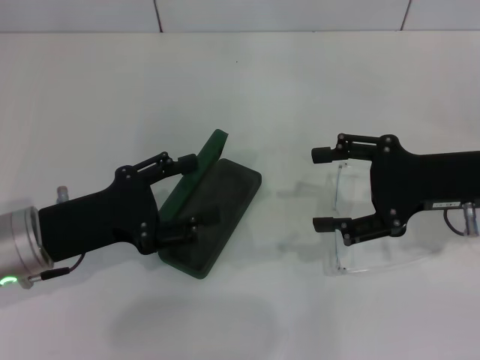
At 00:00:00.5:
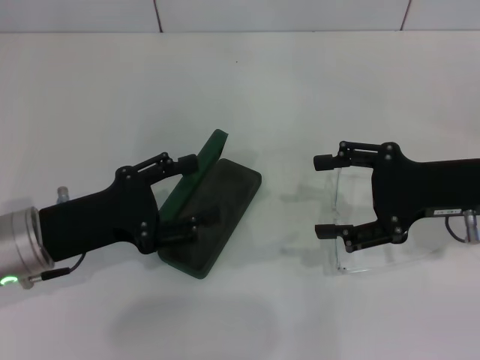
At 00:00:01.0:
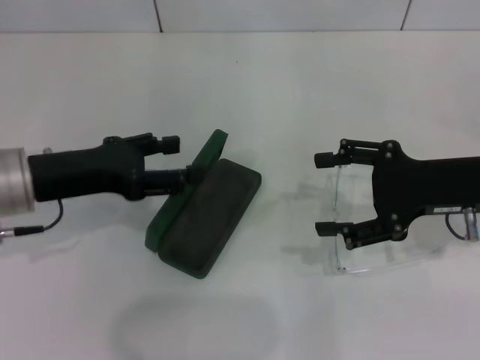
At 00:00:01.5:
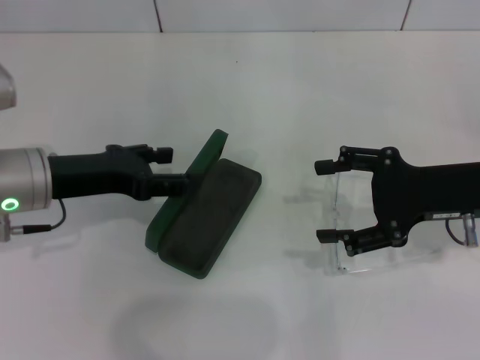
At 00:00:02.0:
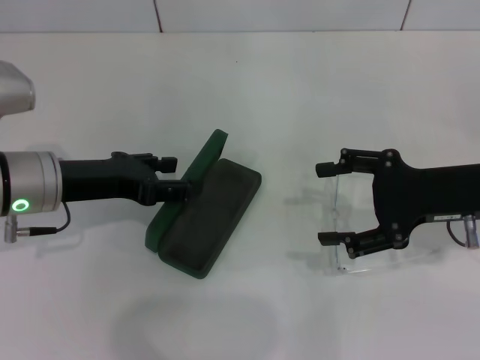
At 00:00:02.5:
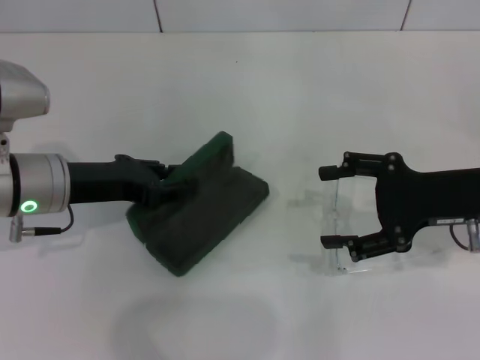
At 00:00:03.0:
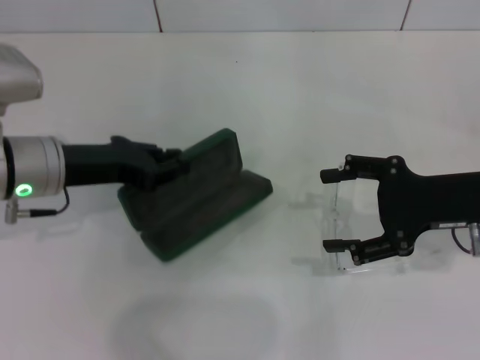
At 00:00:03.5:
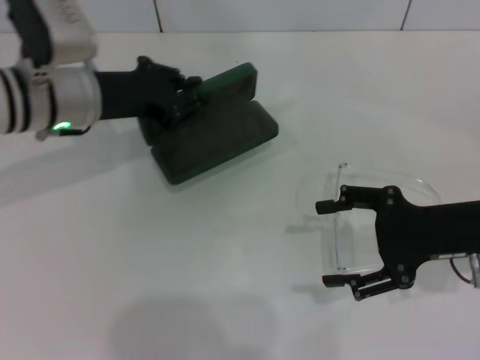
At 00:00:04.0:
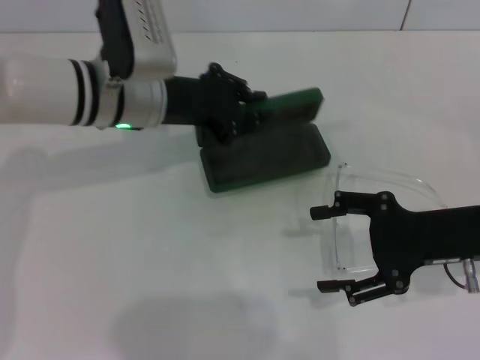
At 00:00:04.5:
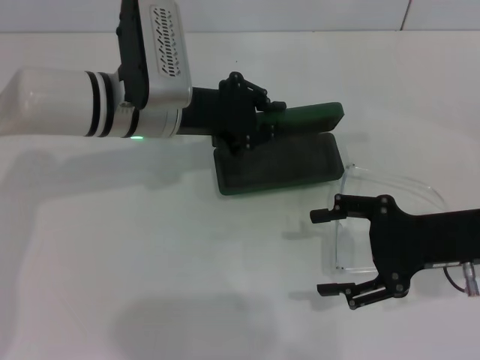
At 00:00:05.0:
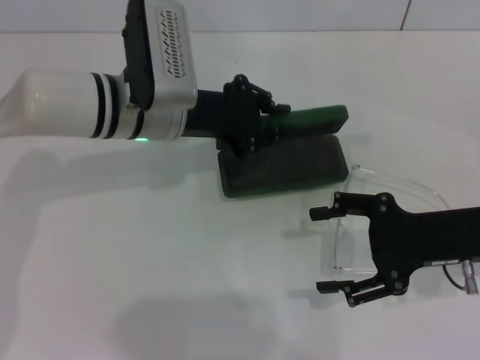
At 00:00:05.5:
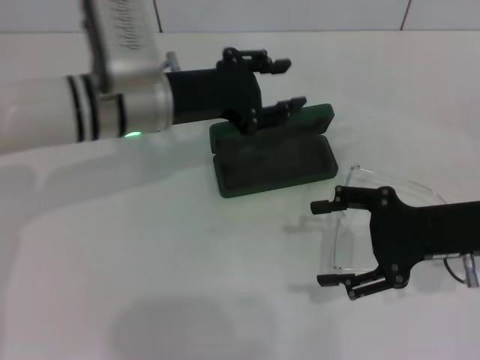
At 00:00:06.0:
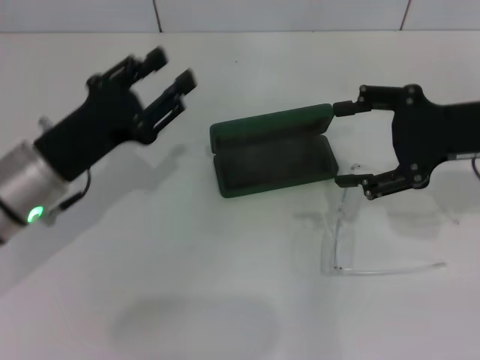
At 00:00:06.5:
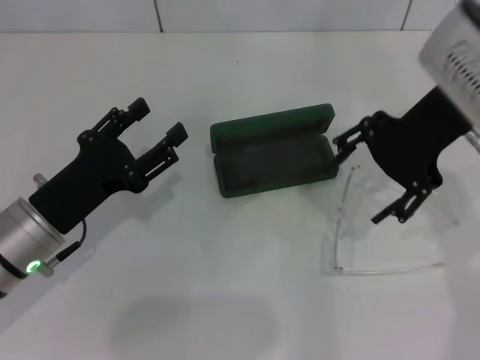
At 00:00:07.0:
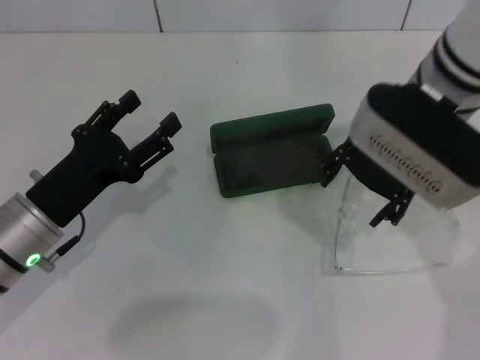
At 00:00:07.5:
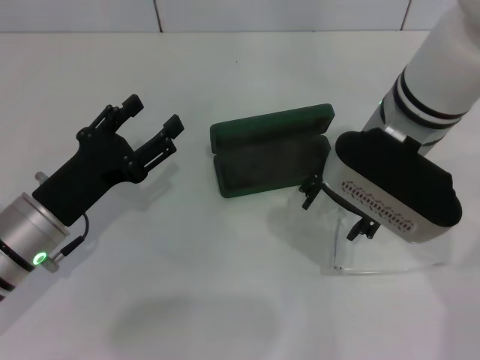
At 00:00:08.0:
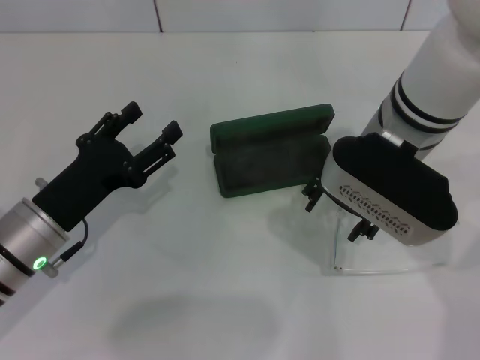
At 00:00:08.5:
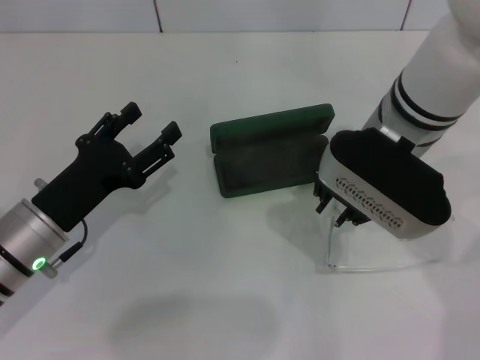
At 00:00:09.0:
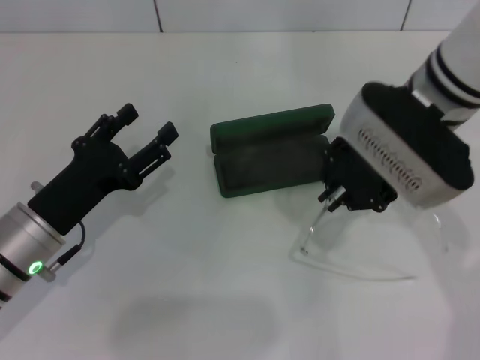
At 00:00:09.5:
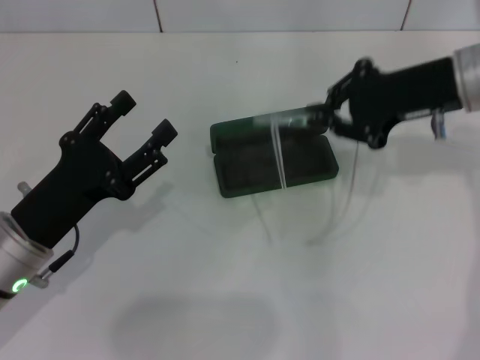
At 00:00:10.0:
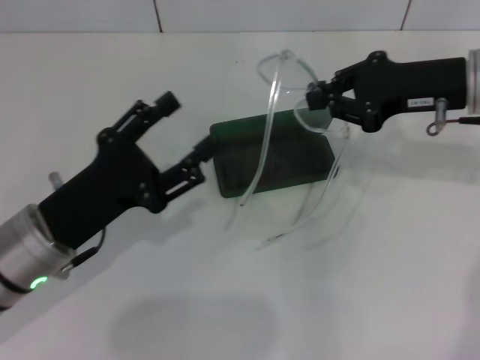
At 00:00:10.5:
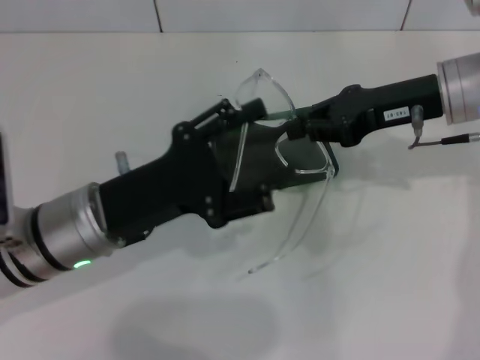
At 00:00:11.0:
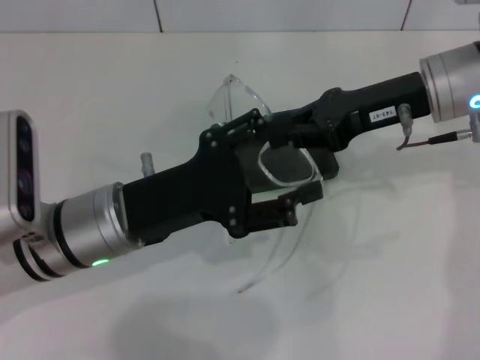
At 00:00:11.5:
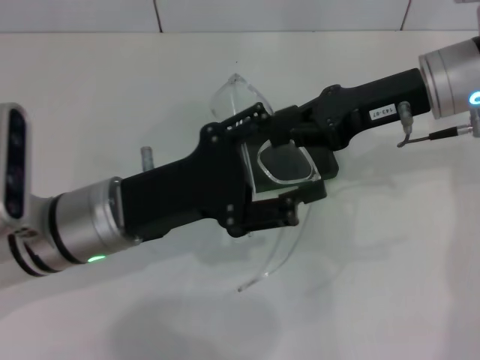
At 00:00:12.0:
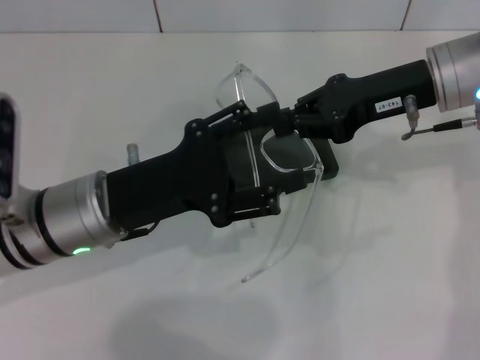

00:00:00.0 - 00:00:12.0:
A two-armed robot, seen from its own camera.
Step, 00:00:00.0 - 00:00:02.0: Grab the glasses case with your left hand.
Step, 00:00:03.0 - 00:00:05.0: Place the glasses case in the center of the table with your left hand.
Step, 00:00:05.5 - 00:00:08.5: Grab the eyeglass frame with your right hand.
00:00:00.0 - 00:00:02.0: The left gripper heads forward, covering about 5 cm.
00:00:02.0 - 00:00:04.0: The left gripper shifts some 10 cm to the right and forward, and closes its fingers.
00:00:04.0 - 00:00:06.0: The right gripper goes approximately 10 cm upward; the left gripper travels backward and to the left by about 15 cm, and opens.
00:00:06.0 - 00:00:08.0: The right gripper heads to the left, covering approximately 15 cm, while the left gripper shifts by roughly 5 cm, and opens.
00:00:08.0 - 00:00:10.0: The right gripper moves to the right, some 10 cm, and closes up.
00:00:10.0 - 00:00:12.0: The left gripper ends up some 5 cm from where it was.

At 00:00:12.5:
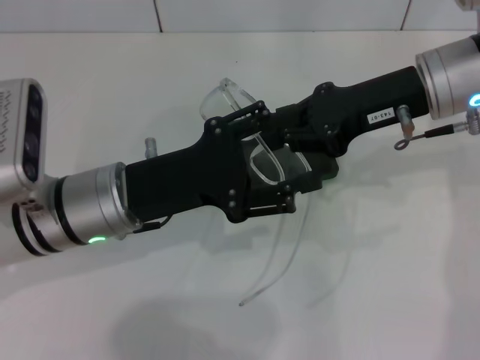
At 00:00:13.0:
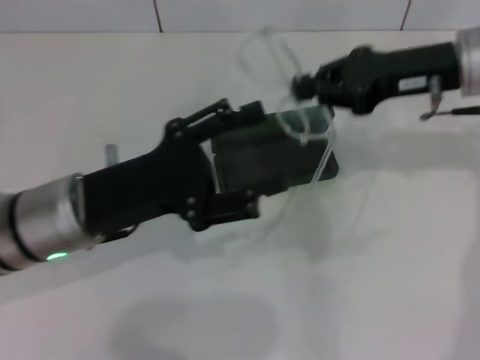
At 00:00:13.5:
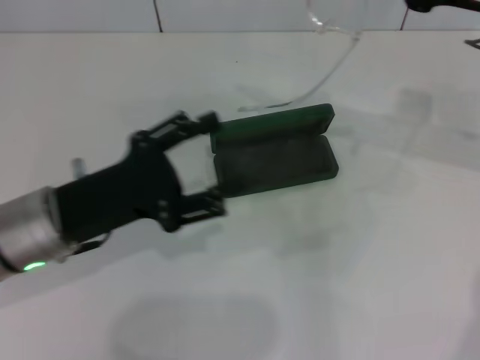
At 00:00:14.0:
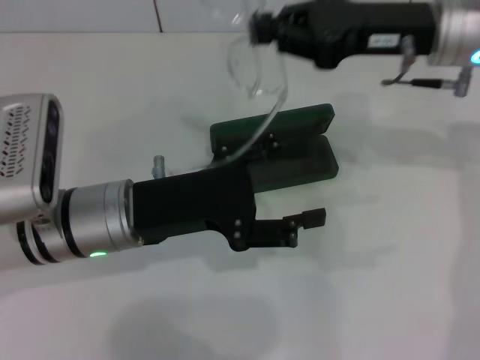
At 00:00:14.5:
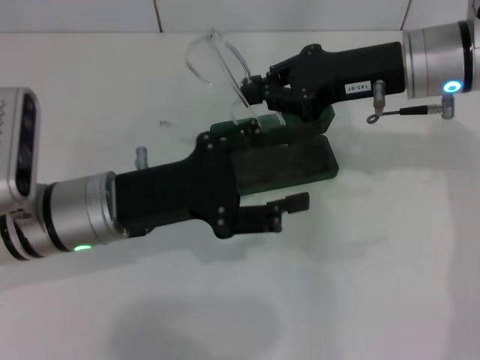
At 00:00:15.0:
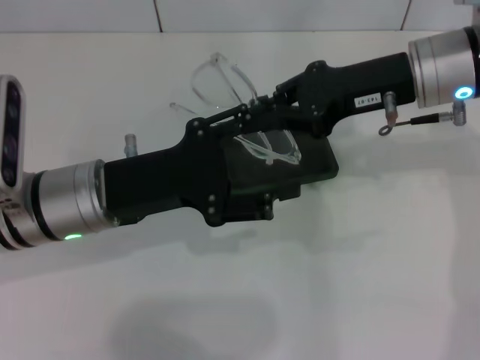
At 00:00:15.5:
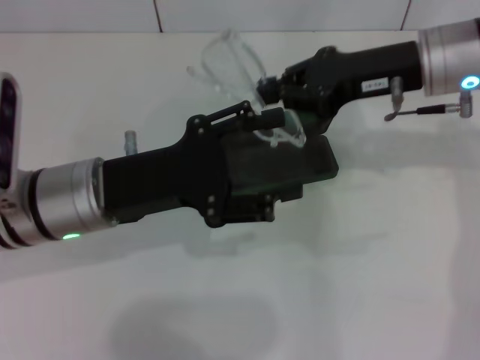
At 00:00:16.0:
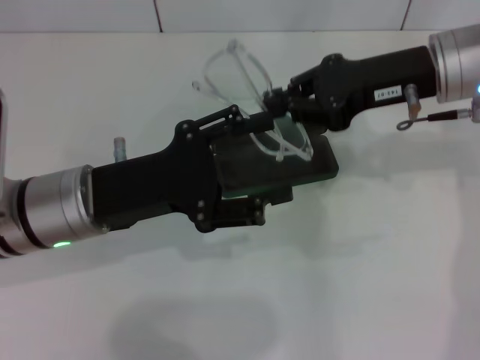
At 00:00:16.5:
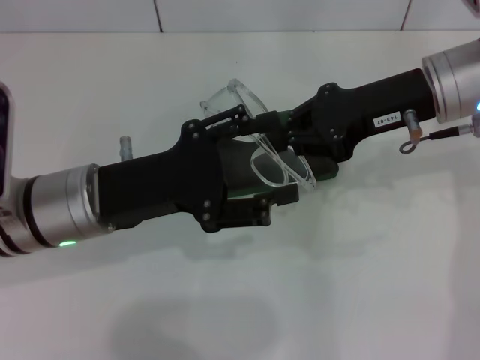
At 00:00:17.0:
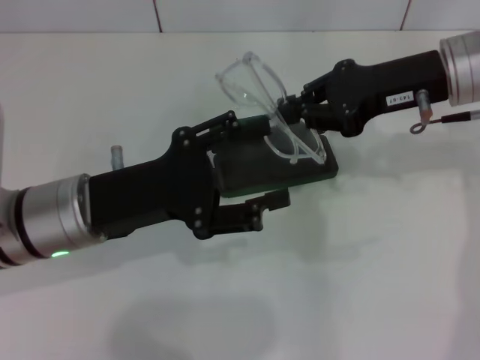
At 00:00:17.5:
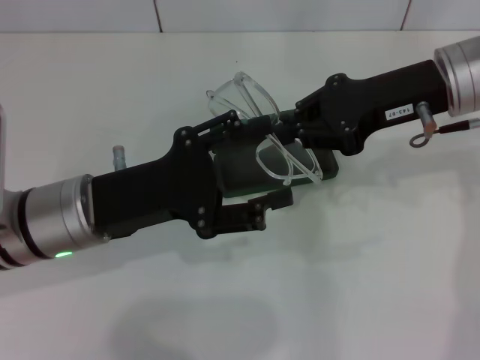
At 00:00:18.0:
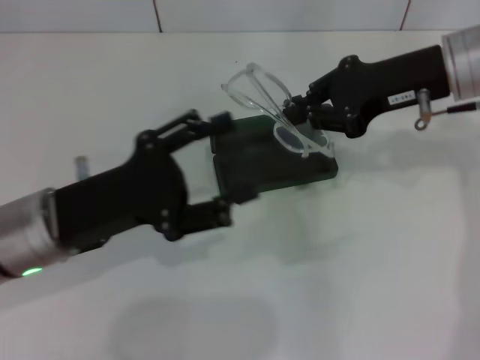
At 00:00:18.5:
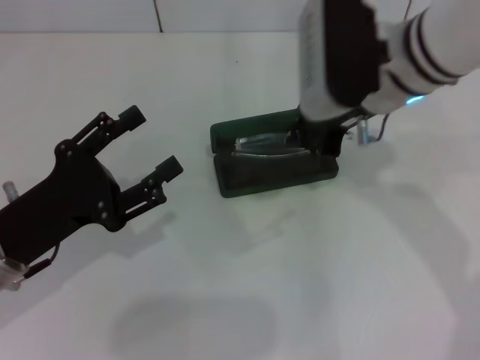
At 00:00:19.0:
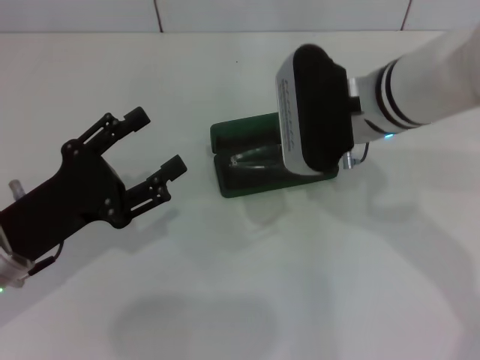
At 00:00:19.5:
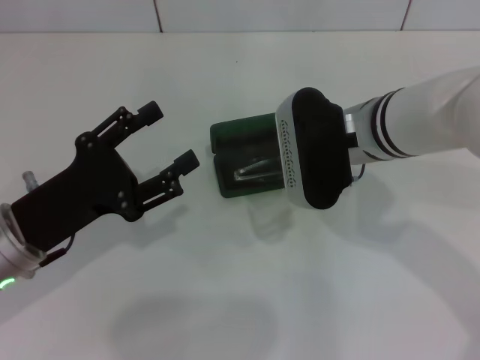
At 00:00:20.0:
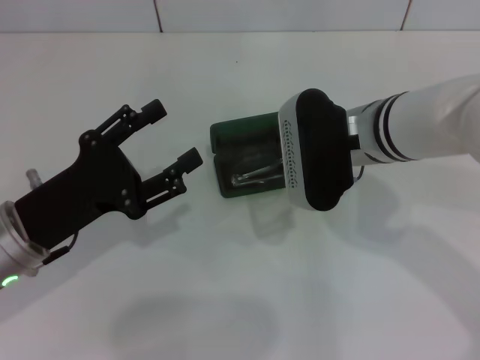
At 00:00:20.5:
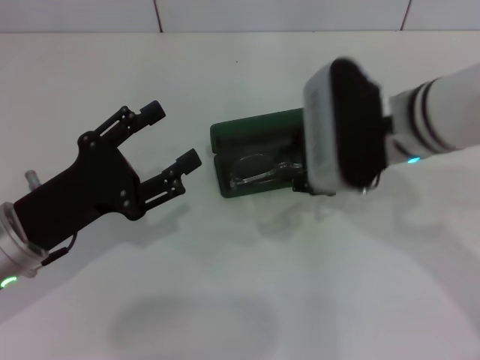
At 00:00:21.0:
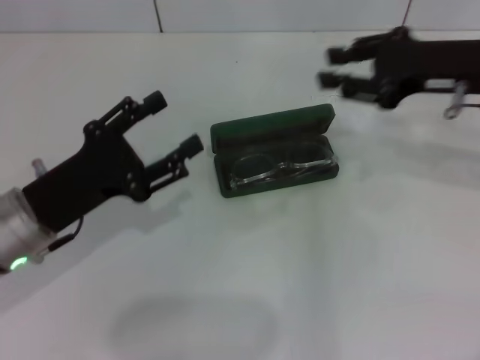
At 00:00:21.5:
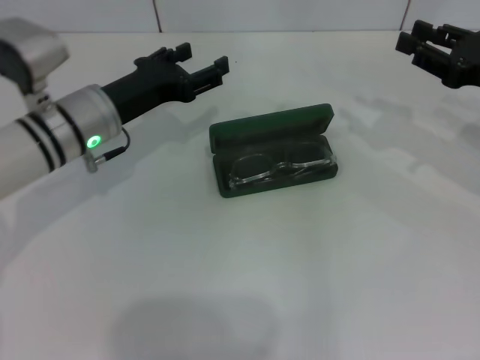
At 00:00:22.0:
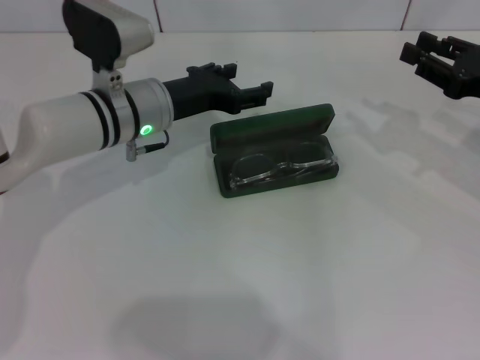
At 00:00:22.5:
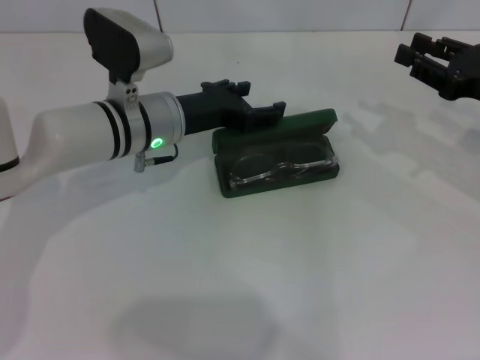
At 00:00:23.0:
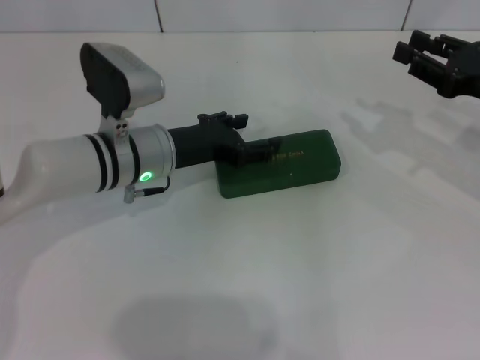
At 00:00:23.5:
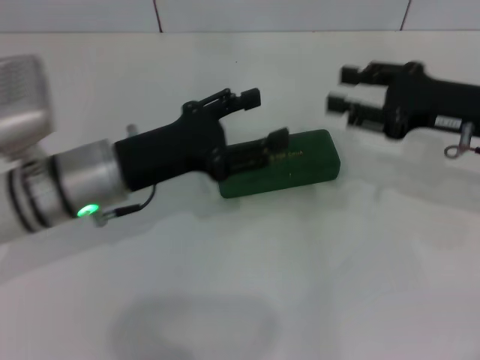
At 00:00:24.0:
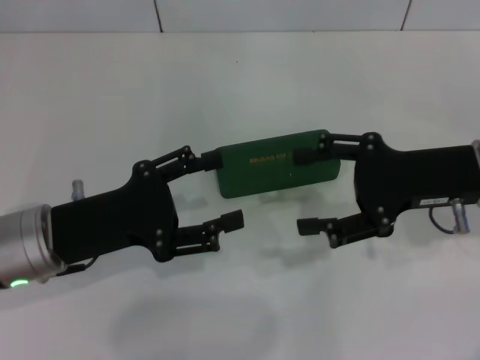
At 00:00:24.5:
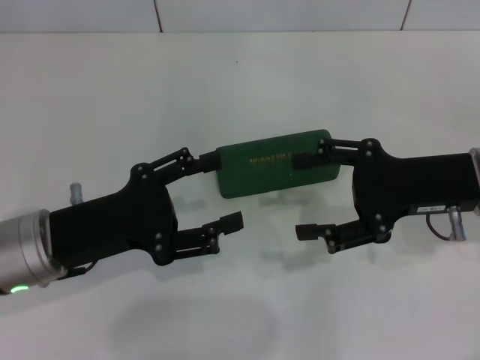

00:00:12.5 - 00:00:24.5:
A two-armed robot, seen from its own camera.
Step, 00:00:12.5 - 00:00:15.0: Lift the glasses with your right hand.
Step, 00:00:16.0 - 00:00:20.0: Put the glasses into the case with your right hand.
Step, 00:00:20.5 - 00:00:23.0: Close the glasses case with your left hand.
00:00:12.5 - 00:00:14.5: The right gripper reaches approximately 5 cm to the right, then returns.
00:00:16.5 - 00:00:18.5: The left gripper travels to the left and backward by approximately 10 cm. Meanwhile the right gripper is displaced to the left by approximately 5 cm.
00:00:18.5 - 00:00:20.5: The right gripper shifts by roughly 5 cm, and opens up.
00:00:20.5 - 00:00:22.5: The right gripper goes approximately 20 cm to the right. Meanwhile the left gripper goes some 20 cm forward and to the right.
00:00:22.5 - 00:00:24.5: The left gripper travels backward and to the left by roughly 15 cm, while the right gripper is displaced to the left by some 10 cm, and opens up.
